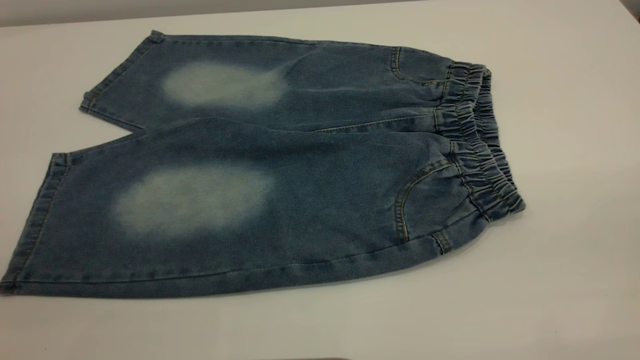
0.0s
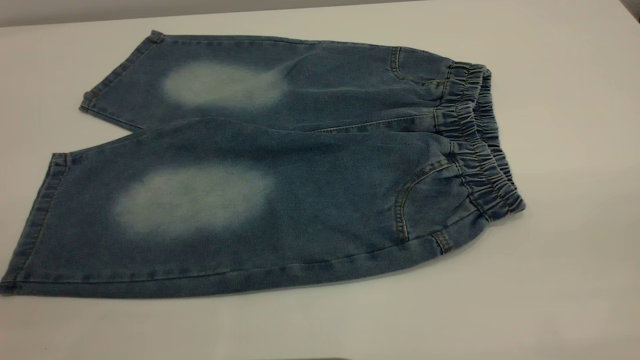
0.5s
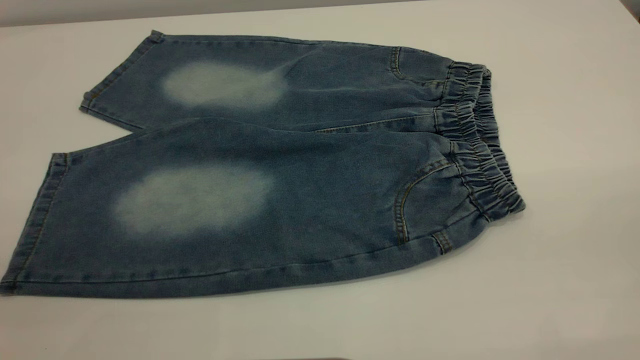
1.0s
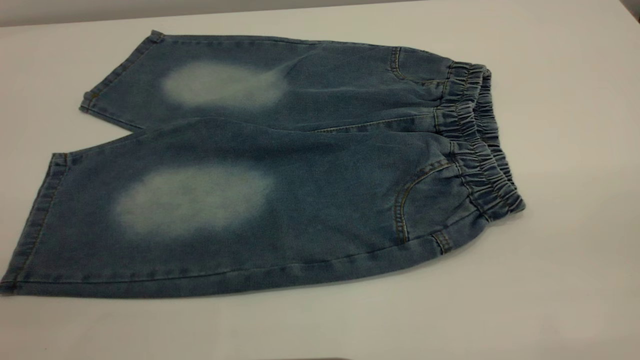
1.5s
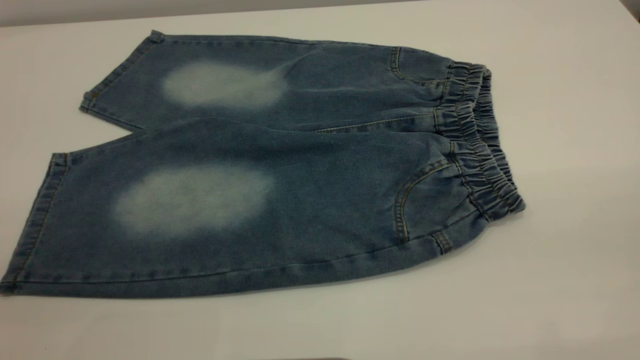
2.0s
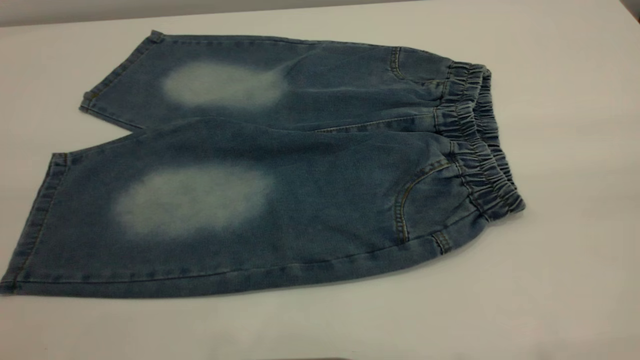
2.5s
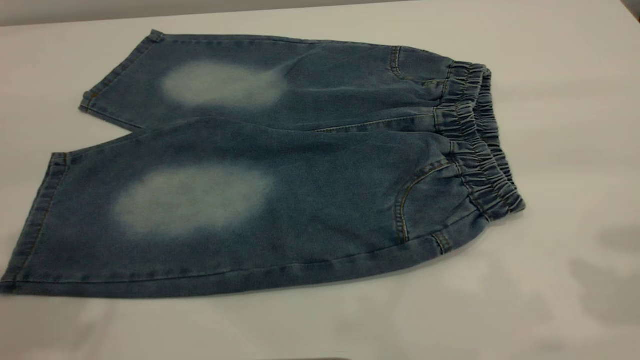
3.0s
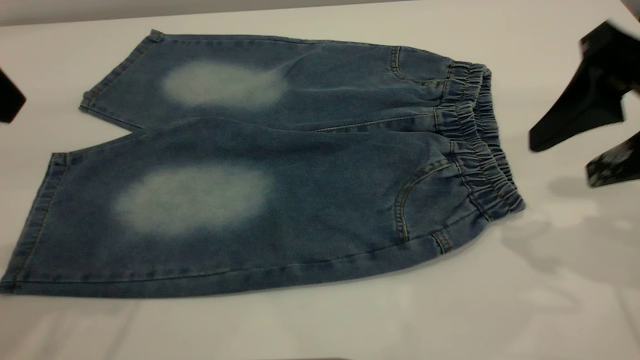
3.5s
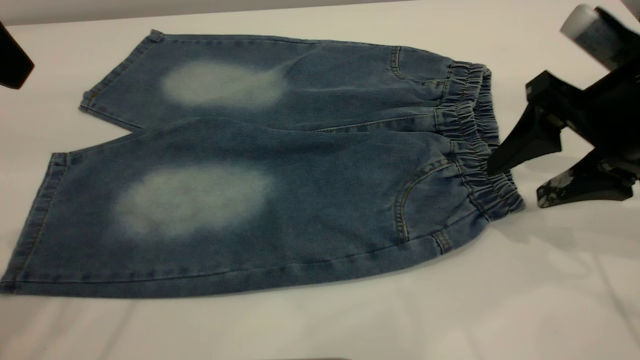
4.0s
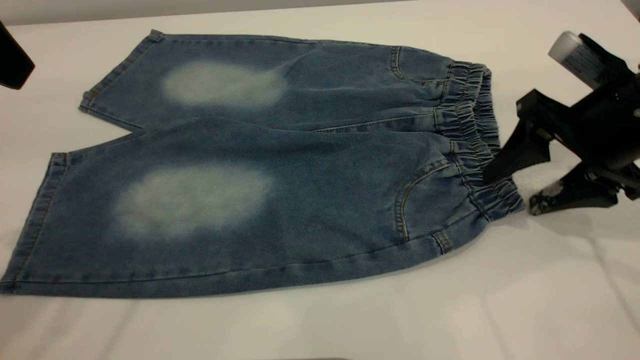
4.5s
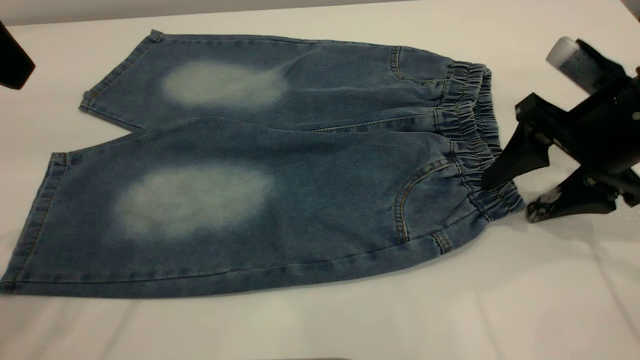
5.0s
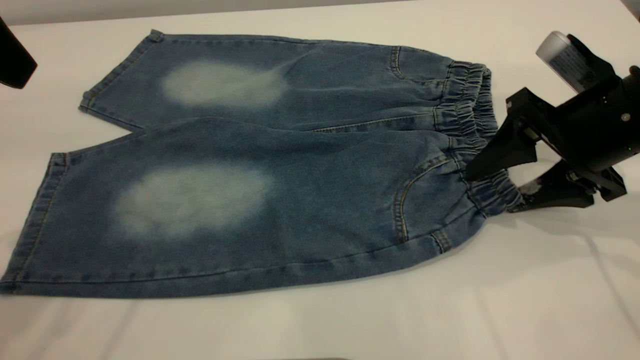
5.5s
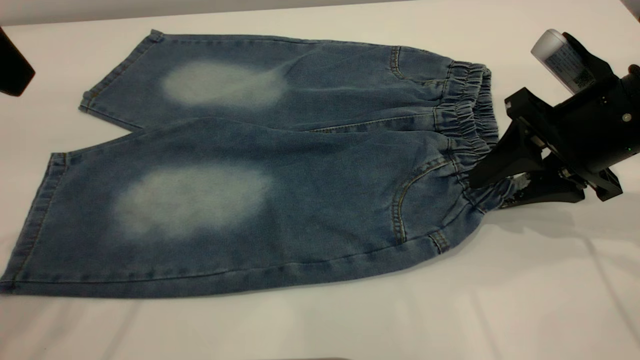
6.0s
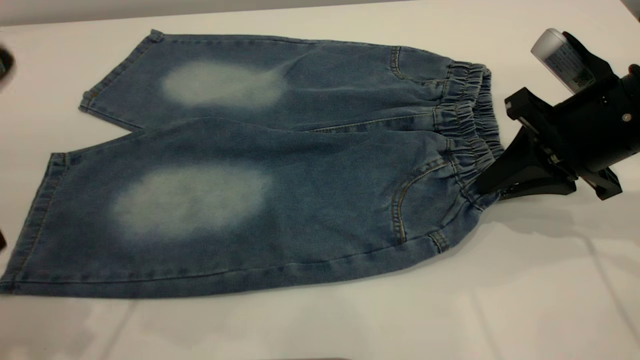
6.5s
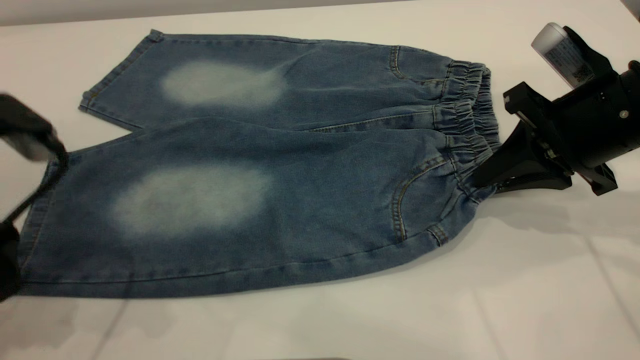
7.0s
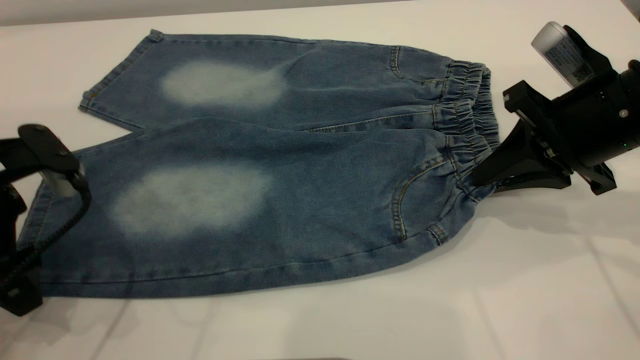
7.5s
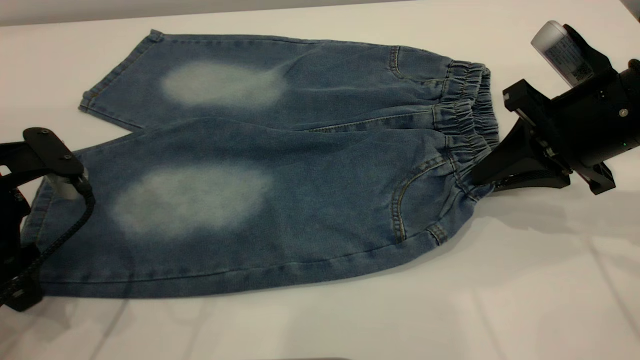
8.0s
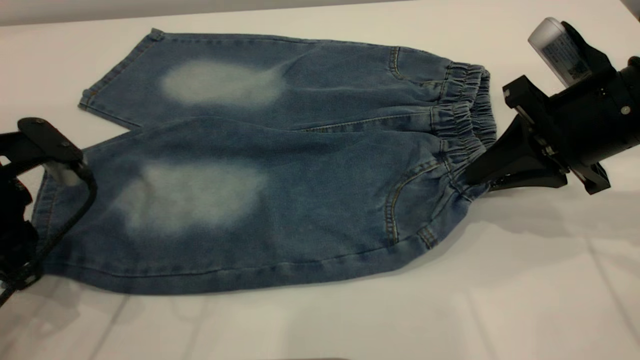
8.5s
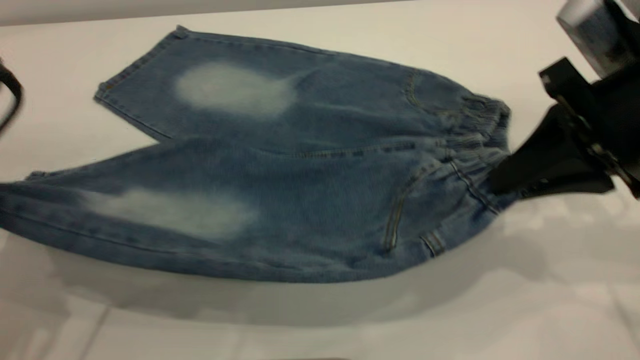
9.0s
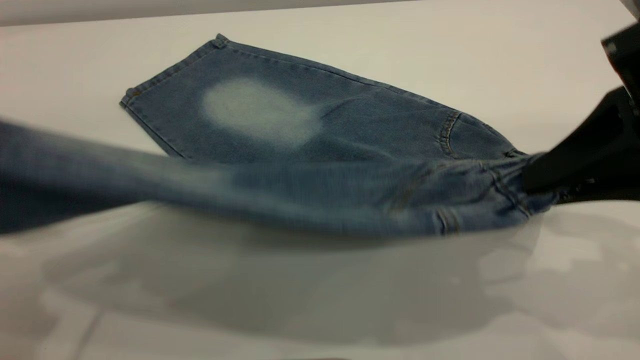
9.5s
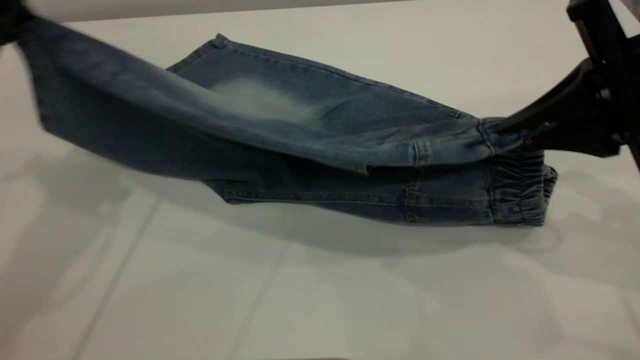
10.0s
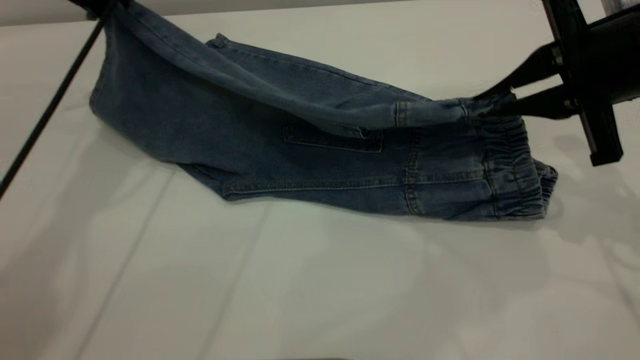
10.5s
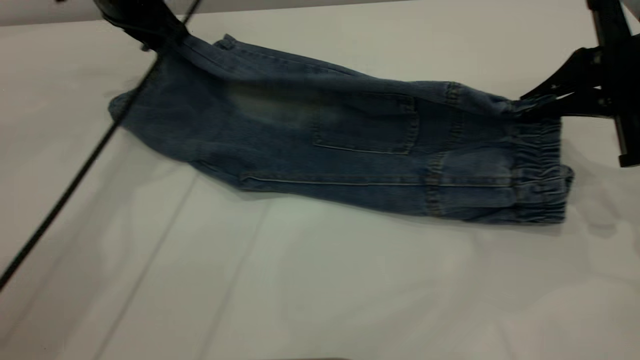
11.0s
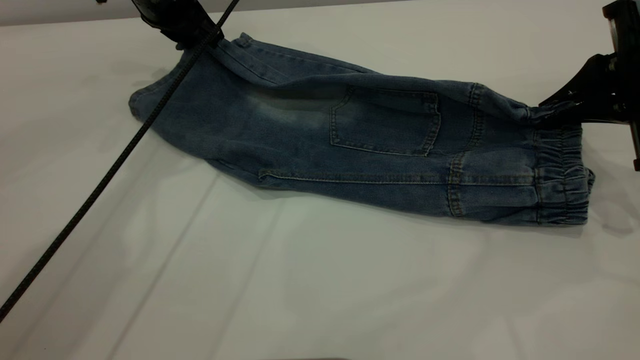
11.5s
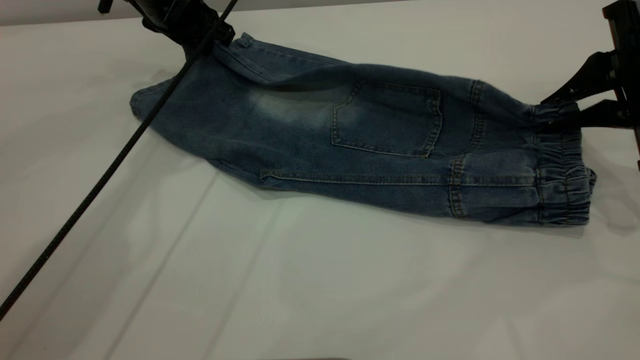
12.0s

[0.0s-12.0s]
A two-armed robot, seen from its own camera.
0.0s to 2.0s: Neither gripper changes place.
2.0s to 4.0s: The right gripper heads forward and downward, covering approximately 35 cm. The left gripper shifts roughly 25 cm forward, and opens.
4.0s to 6.0s: The right gripper closes its fingers.
6.0s to 8.0s: The left gripper is displaced downward by some 20 cm; the right gripper closes.
8.0s to 10.0s: The right gripper goes some 10 cm upward and backward, while the left gripper moves upward and forward, roughly 20 cm, and closes up.
10.0s to 12.0s: The right gripper goes about 5 cm forward. Meanwhile the left gripper shifts some 20 cm forward, downward and to the right, and opens up.

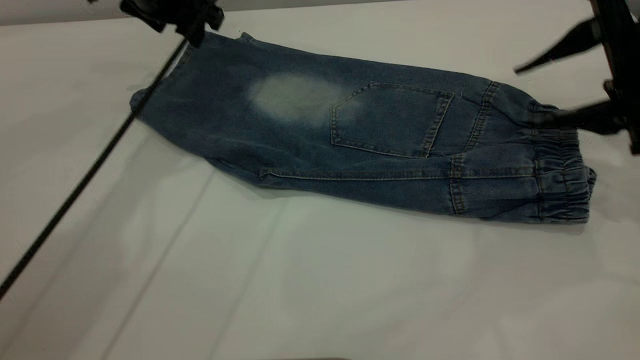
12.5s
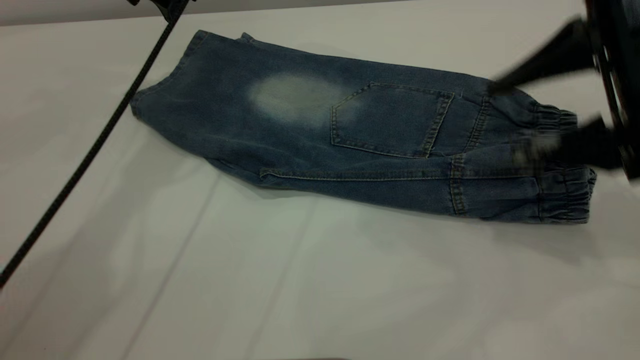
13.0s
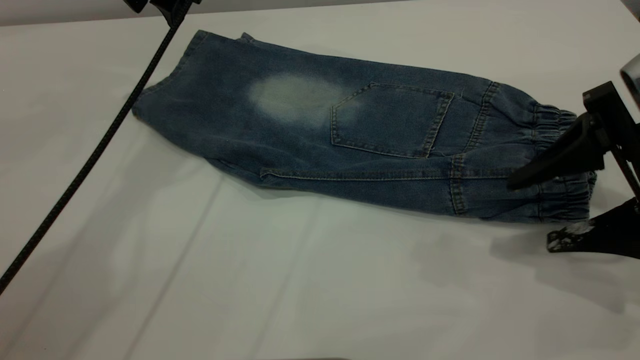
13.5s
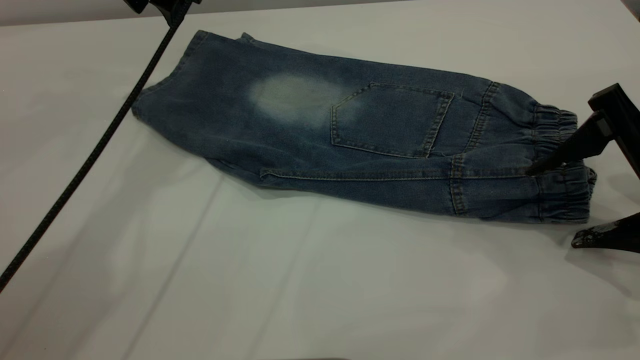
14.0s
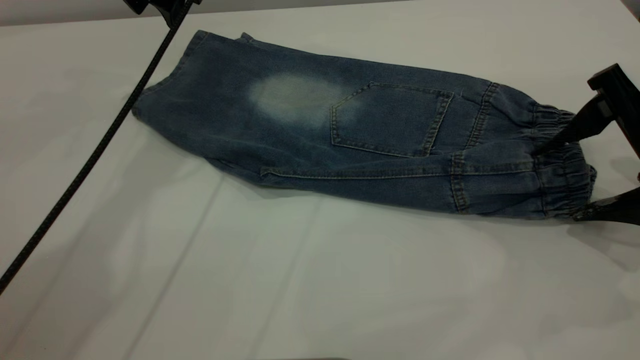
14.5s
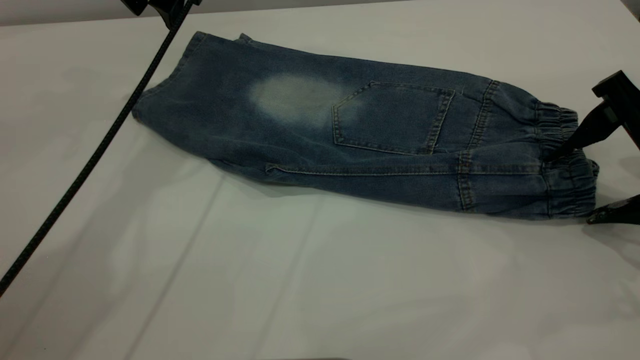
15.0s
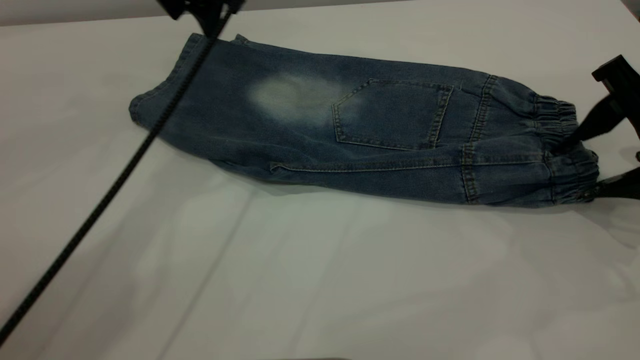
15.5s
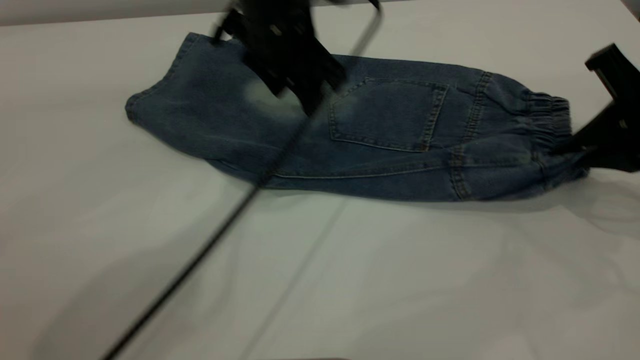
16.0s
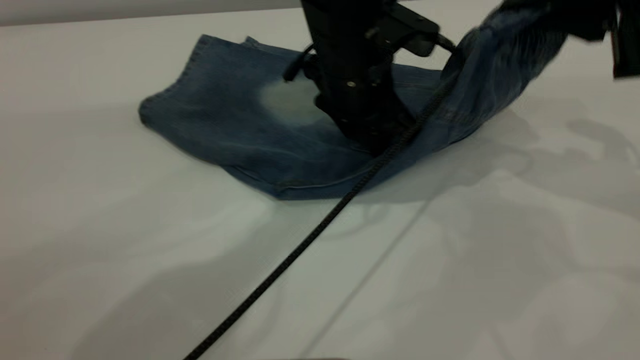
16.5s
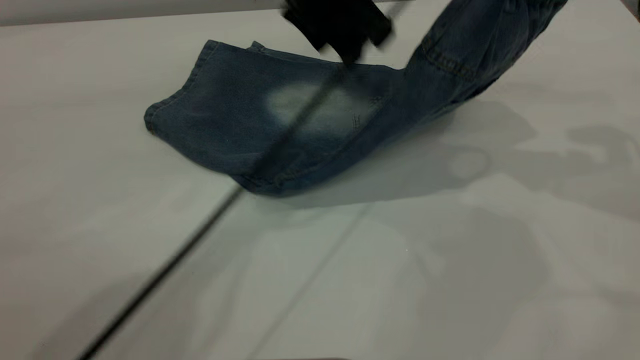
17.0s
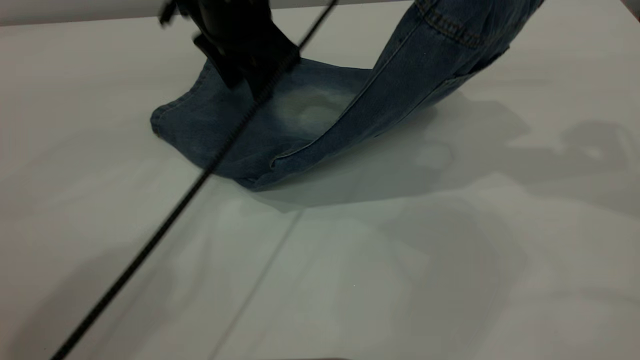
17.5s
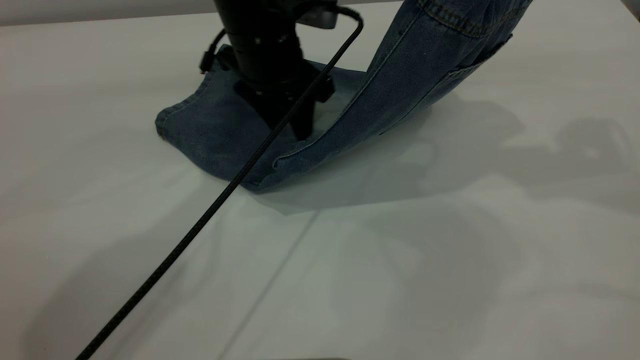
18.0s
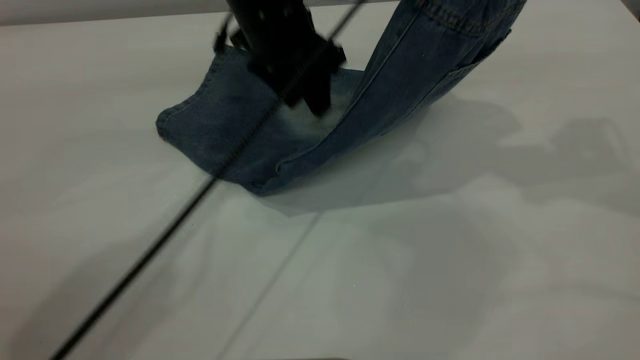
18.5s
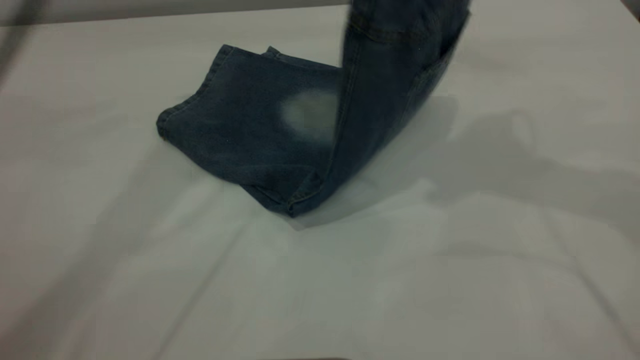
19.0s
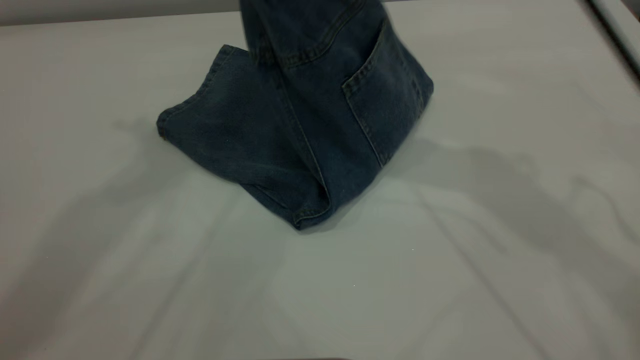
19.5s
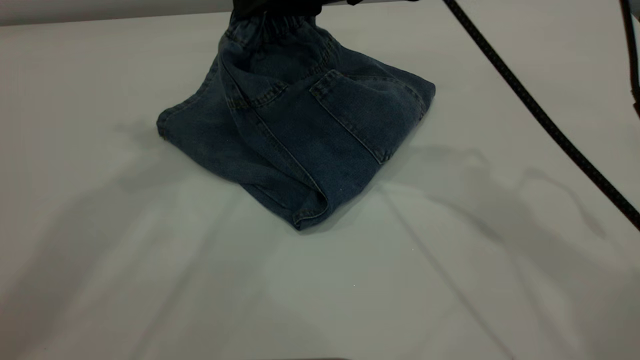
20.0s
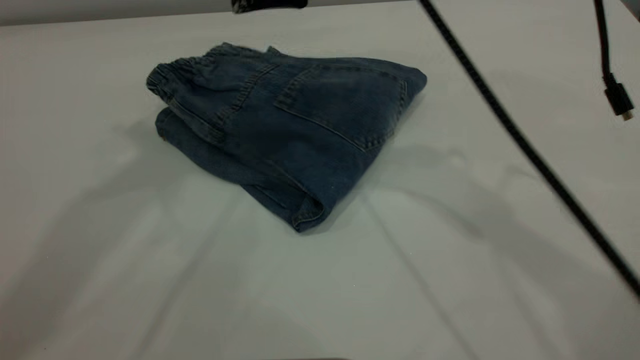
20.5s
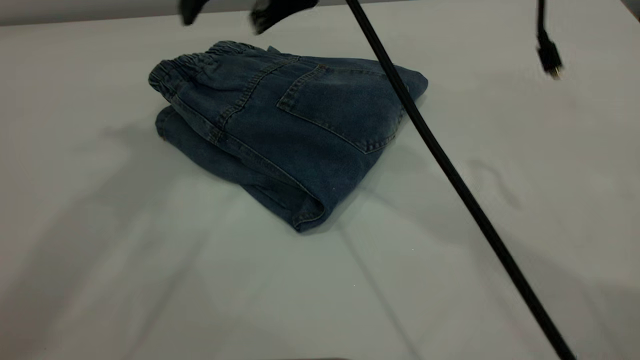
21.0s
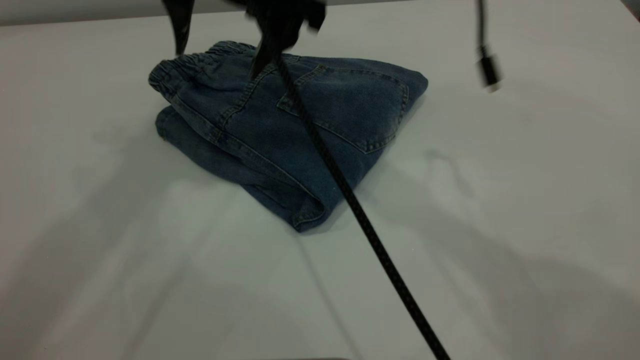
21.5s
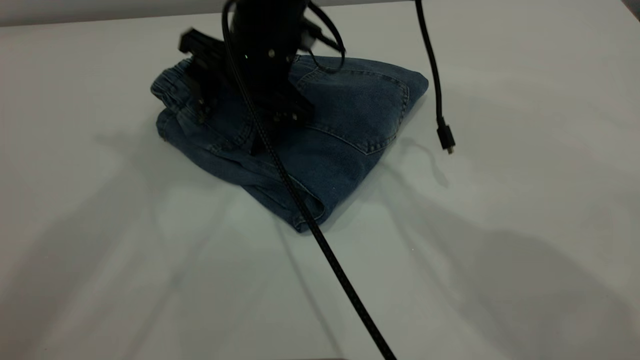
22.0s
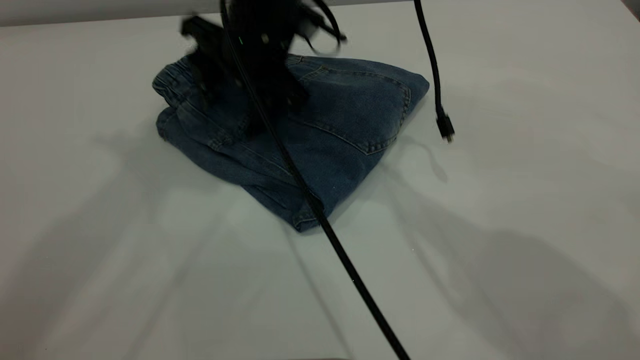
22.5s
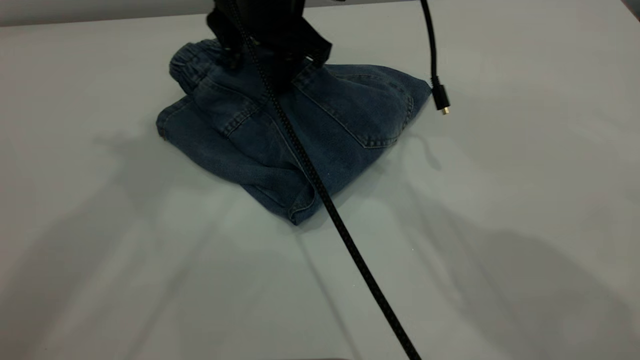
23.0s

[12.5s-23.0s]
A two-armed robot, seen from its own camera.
Step, 13.5s to 21.0s: Fold your pants from right to left.
12.5s to 14.5s: The right gripper changes place by roughly 5 cm.
14.5s to 16.5s: The right gripper goes roughly 10 cm upward and forward, and closes its fingers; the left gripper travels to the right, backward and downward by some 25 cm.
16.5s to 19.0s: The right gripper heads upward and to the left, covering about 15 cm. Meanwhile the left gripper swings up and down, approximately 30 cm each way, with 2 reversals.
19.0s to 21.0s: The right gripper shifts roughly 15 cm to the left, and opens; the left gripper travels upward and backward by about 10 cm.
21.0s to 23.0s: The right gripper goes about 10 cm downward and forward.
